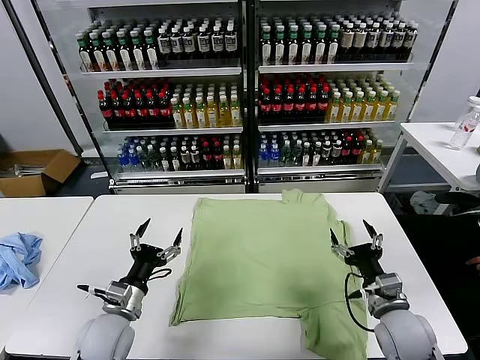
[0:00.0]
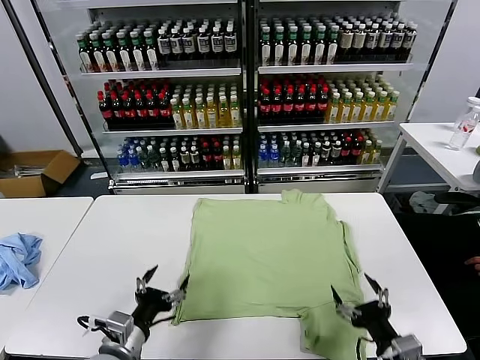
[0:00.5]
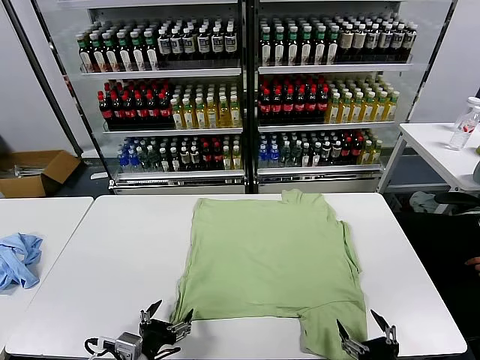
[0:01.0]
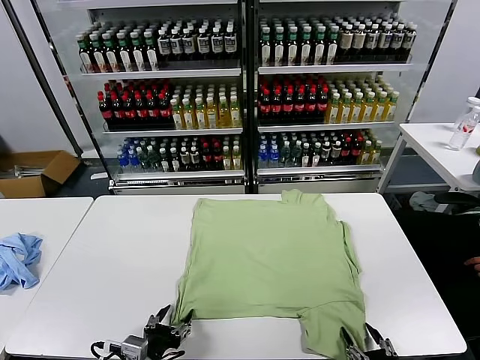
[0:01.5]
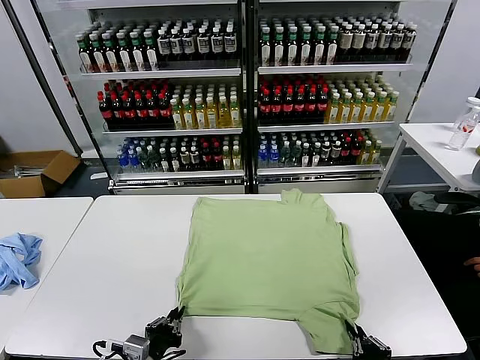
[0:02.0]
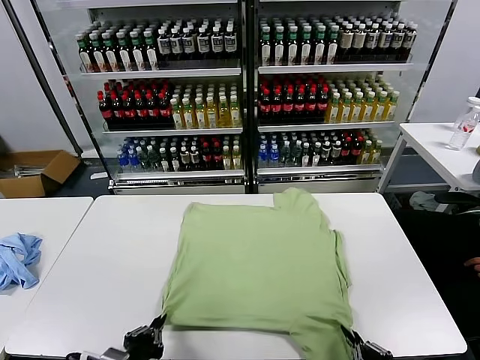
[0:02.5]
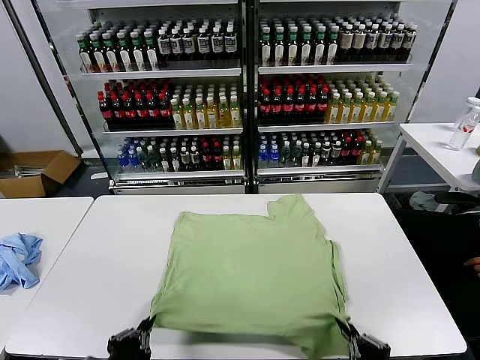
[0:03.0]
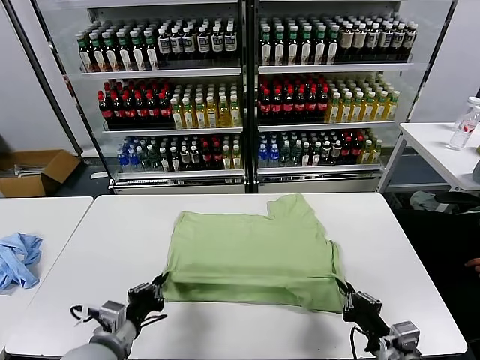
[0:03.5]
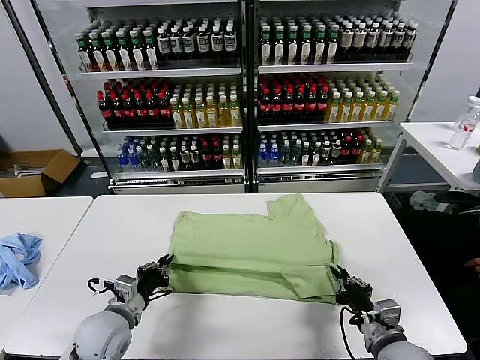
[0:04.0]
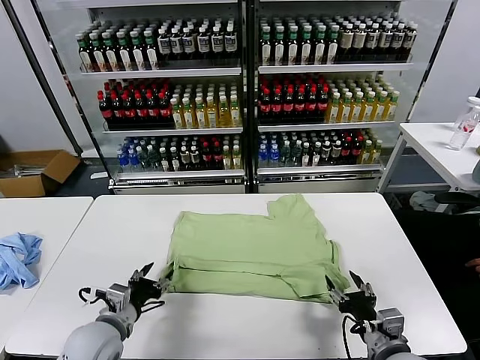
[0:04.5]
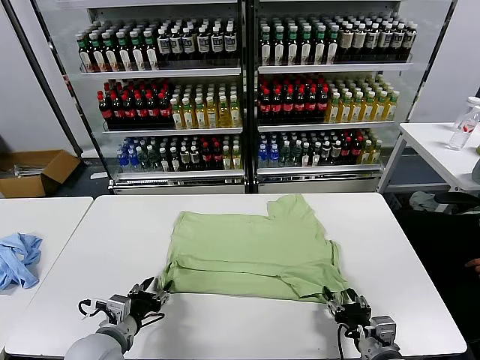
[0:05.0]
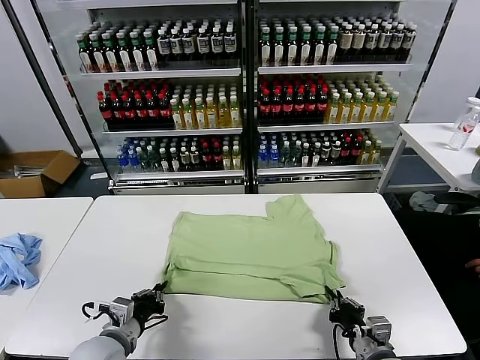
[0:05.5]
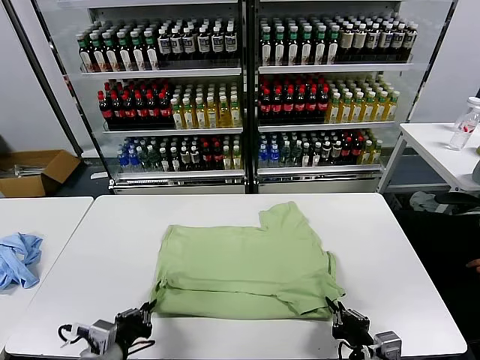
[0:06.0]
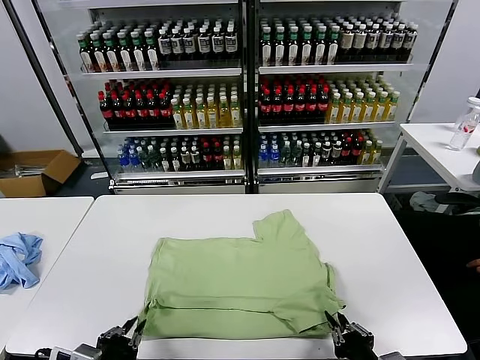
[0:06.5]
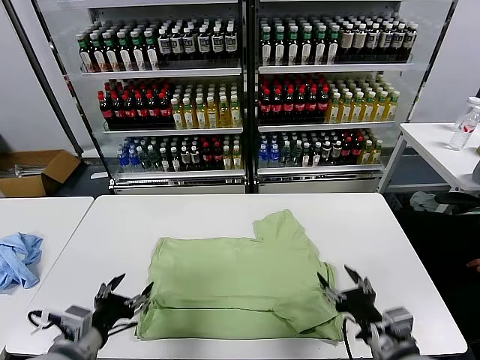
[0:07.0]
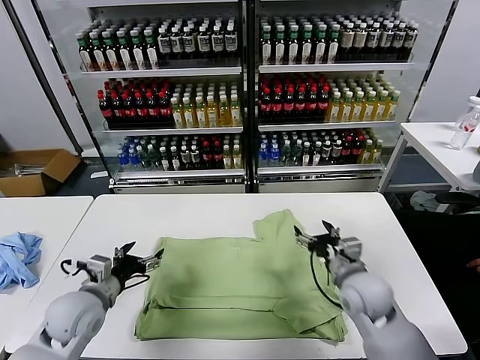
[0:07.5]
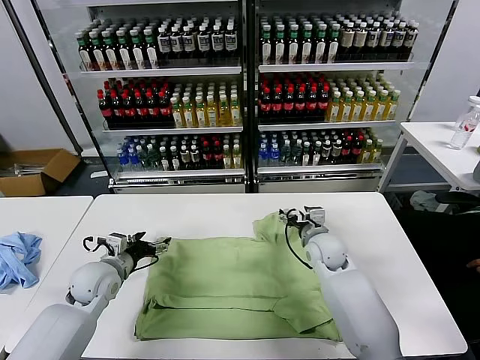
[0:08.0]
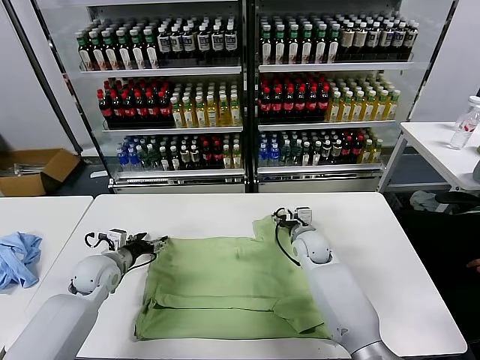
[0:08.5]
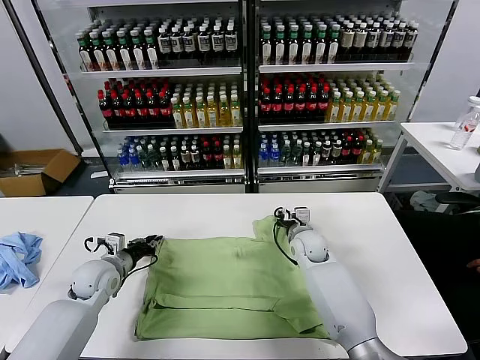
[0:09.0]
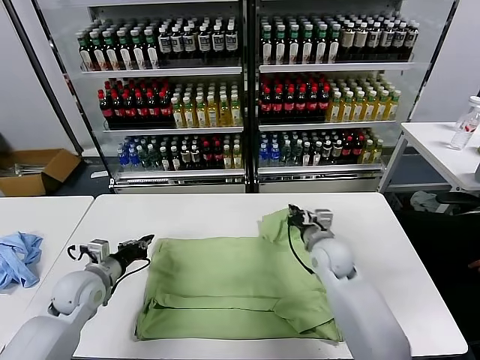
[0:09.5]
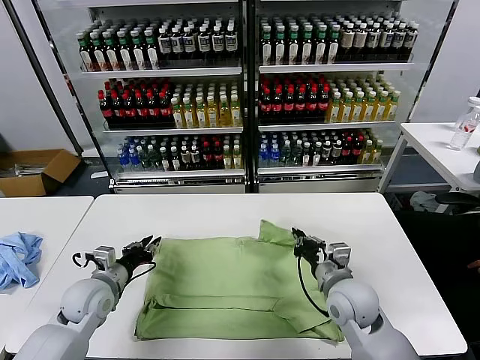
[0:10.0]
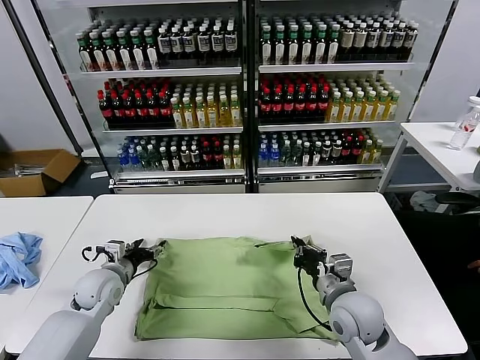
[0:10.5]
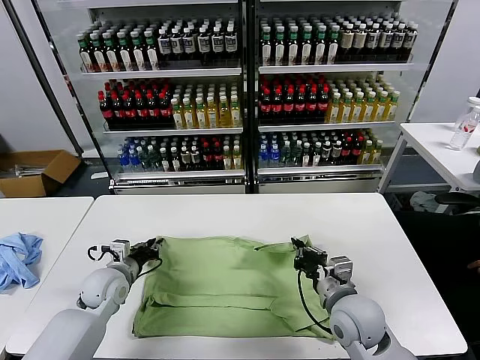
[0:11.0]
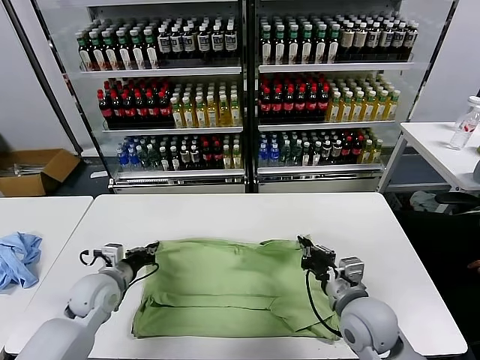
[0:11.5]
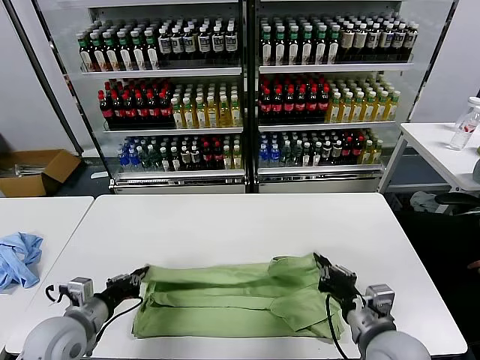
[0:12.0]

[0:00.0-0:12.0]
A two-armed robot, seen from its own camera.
Task of the whole recording: fold and organize the clothes.
Step, 0:00.0 to 0:02.0: use both grippers simultaneously to clamp the lower edge of the clothing fabric.
Step, 0:02.5 to 0:04.0: use both grippers to drag the lower edge of the fabric forward and fold it over the upper edge.
Step, 0:04.5 to 0:06.5: Drag the clothes downward with both gripper.
Step, 0:07.0 to 0:09.0: use both grippers simultaneously to clamp the upper edge of the clothing fabric.
0:02.0 to 0:04.0: The right gripper is displaced forward by some 10 cm. Meanwhile the left gripper is displaced forward and to the left by approximately 15 cm.
0:04.0 to 0:06.0: Both grippers travel together backward, roughly 10 cm. The right gripper opens, then closes once more. Meanwhile the left gripper opens and closes again.
0:06.0 to 0:08.0: The left gripper shifts roughly 20 cm forward, and opens up; the right gripper moves forward, roughly 35 cm, and opens its fingers.
0:08.0 to 0:10.0: The right gripper is displaced backward by some 15 cm, and closes its fingers. Meanwhile the left gripper closes up.
0:10.0 to 0:12.0: The two grippers go some 10 cm backward. The left gripper opens and closes again.

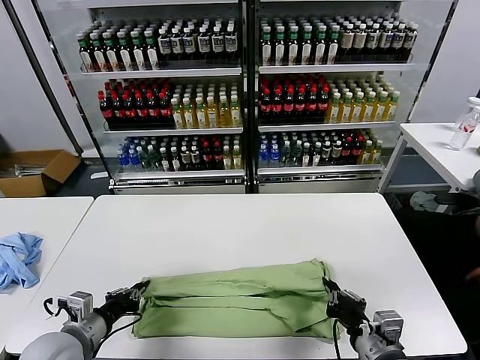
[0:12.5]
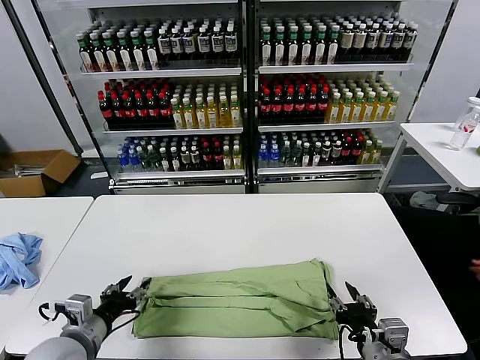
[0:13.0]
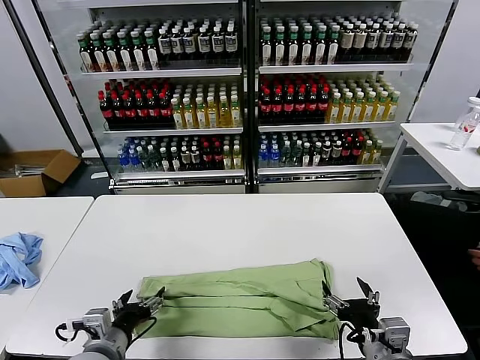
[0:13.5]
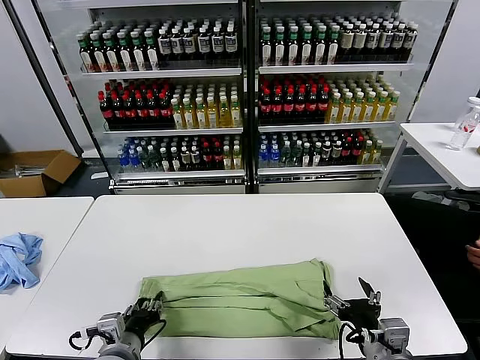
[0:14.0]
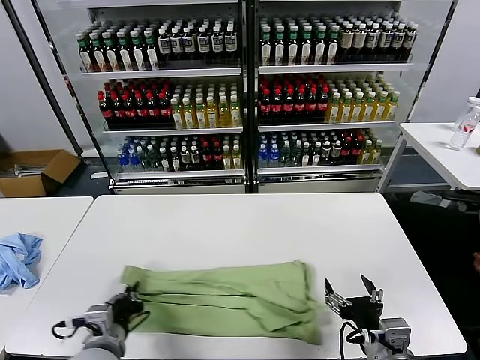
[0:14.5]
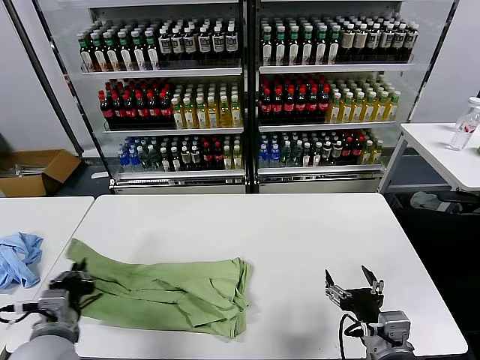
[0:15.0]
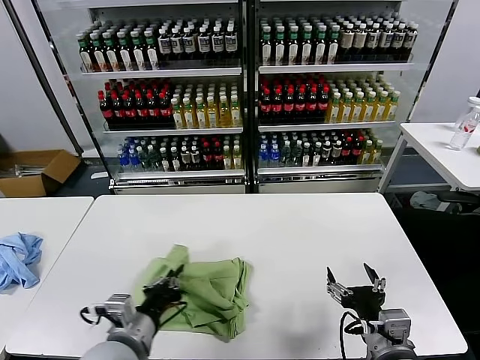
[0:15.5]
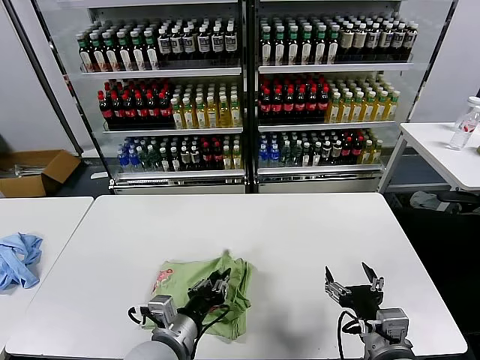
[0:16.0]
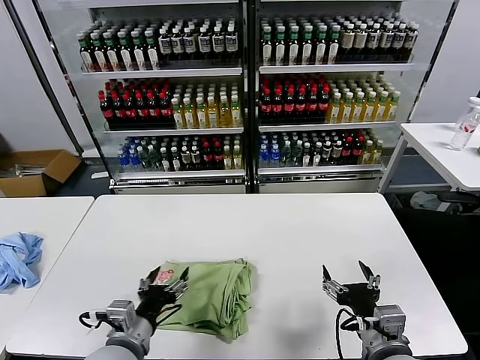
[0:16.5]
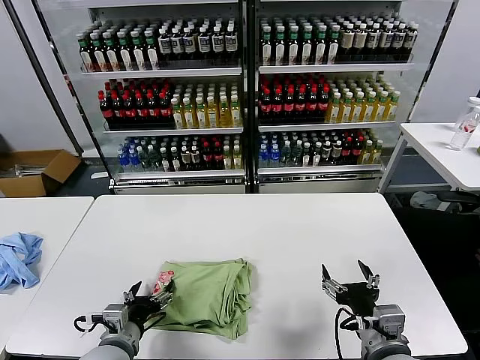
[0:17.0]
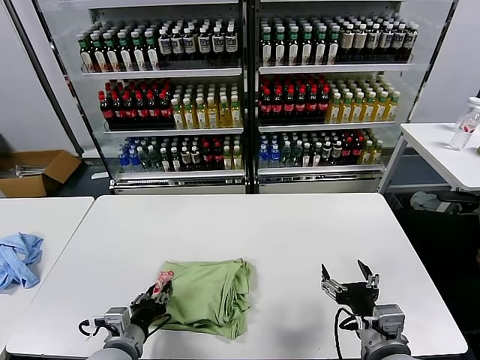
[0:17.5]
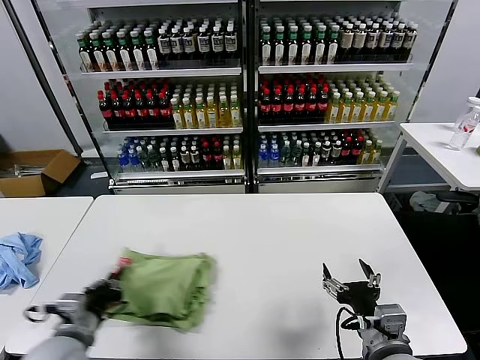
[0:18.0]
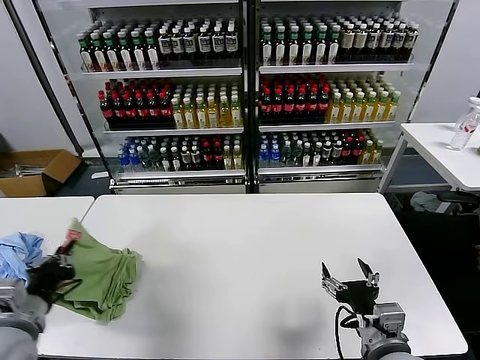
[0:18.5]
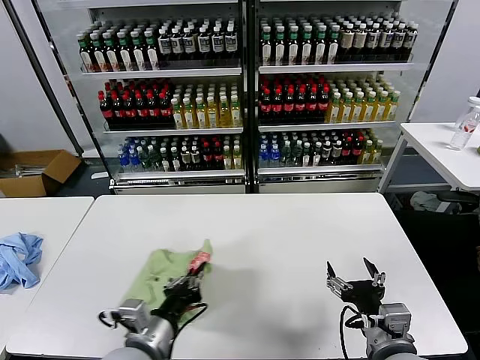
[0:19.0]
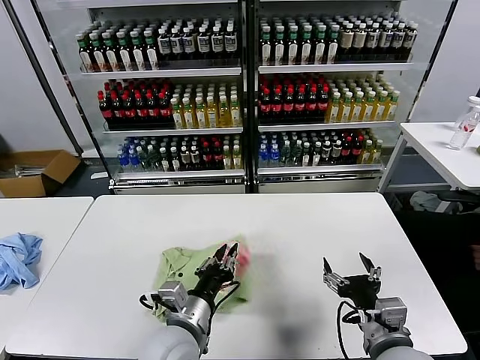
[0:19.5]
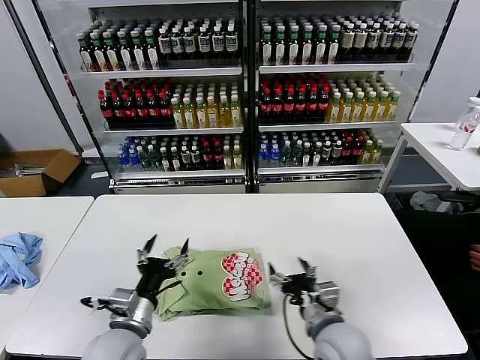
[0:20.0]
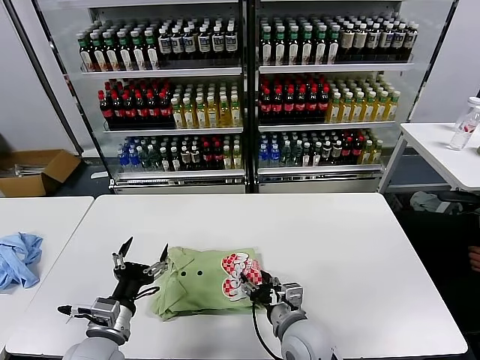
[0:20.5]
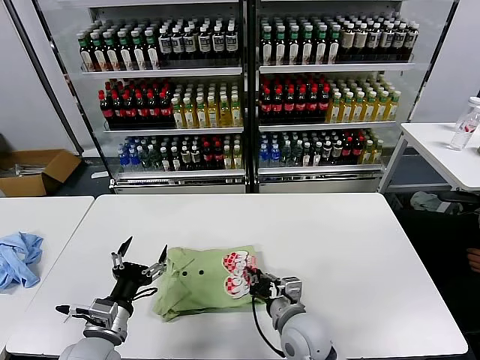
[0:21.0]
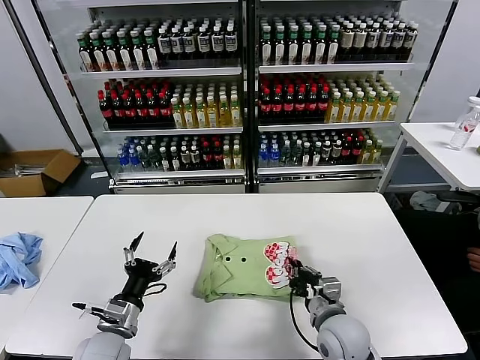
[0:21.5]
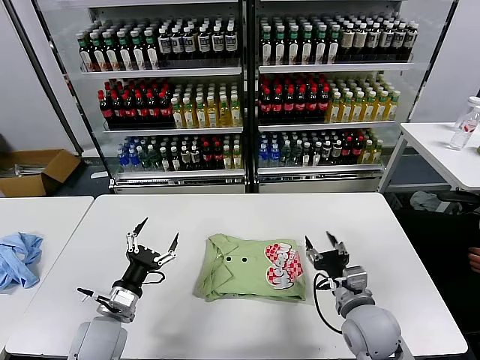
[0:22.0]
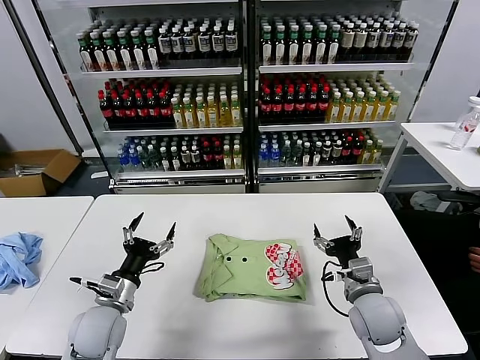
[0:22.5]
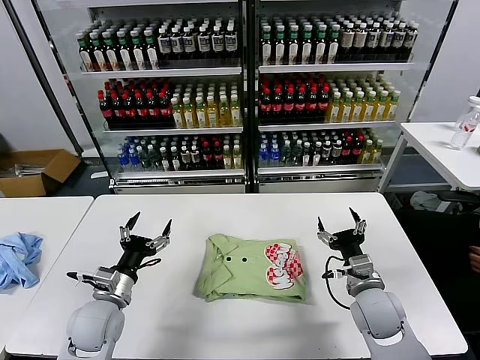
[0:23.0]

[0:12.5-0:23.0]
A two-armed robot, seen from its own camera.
Task of the whole recording: fold and organize the clothes.
Step, 0:13.0 to 0:14.0: use the left gripper to clamp the left edge of the fabric.
Step, 0:14.5 to 0:16.0: use the left gripper to drag the left edge of the fabric to the left and folds it over the right edge.
Step, 0:16.5 to 0:19.5: Flip the folded clothes over with left gripper.
Step, 0:20.0 to 0:21.5: Drag the clothes to the center of the table.
0:12.5 to 0:14.5: The right gripper opens up. The left gripper moves to the right, approximately 10 cm, and opens, then closes once more.
0:14.5 to 0:16.5: The left gripper moves left and right over some 20 cm, changing direction 2 times, and opens up.
0:16.5 to 0:19.0: The left gripper travels to the left and back again, about 15 cm each way, and closes.
0:19.0 to 0:21.0: The right gripper moves to the left, forward and downward, some 20 cm, and closes; the left gripper shifts approximately 10 cm to the left, and opens.
0:21.0 to 0:23.0: The left gripper travels forward by approximately 10 cm; the right gripper travels to the right by some 15 cm, and opens up.

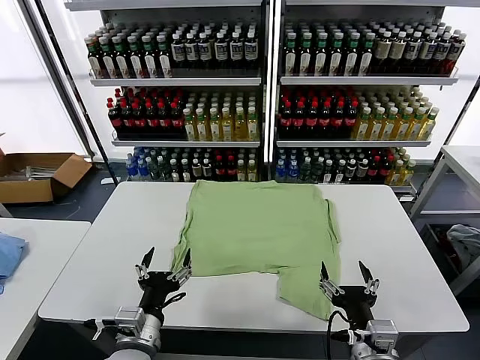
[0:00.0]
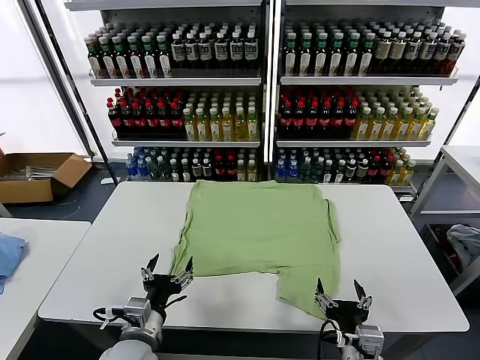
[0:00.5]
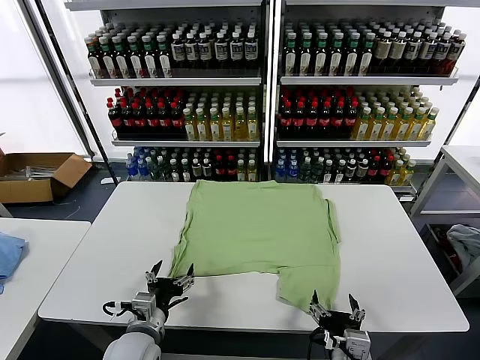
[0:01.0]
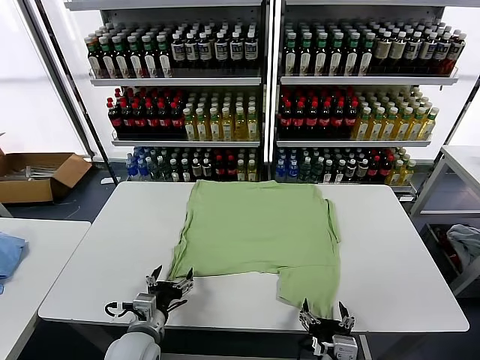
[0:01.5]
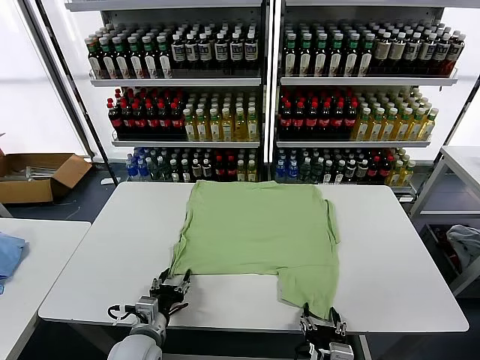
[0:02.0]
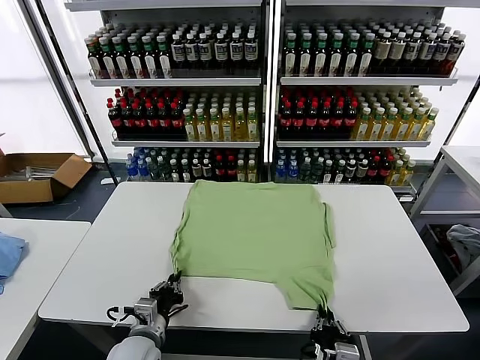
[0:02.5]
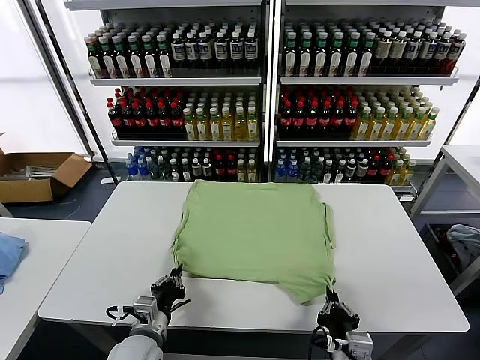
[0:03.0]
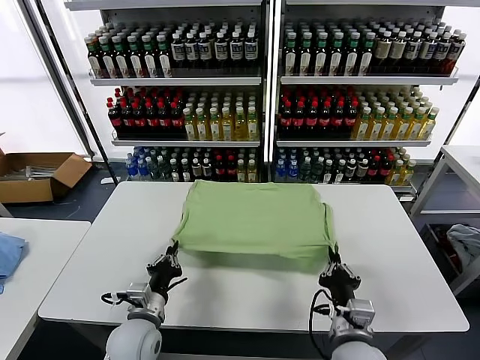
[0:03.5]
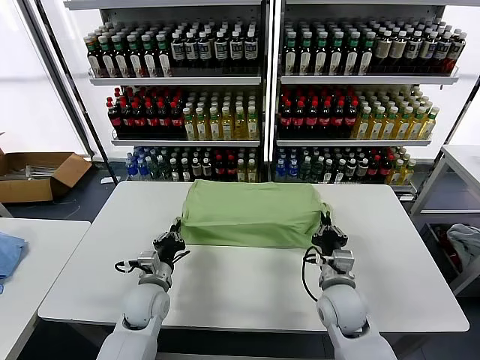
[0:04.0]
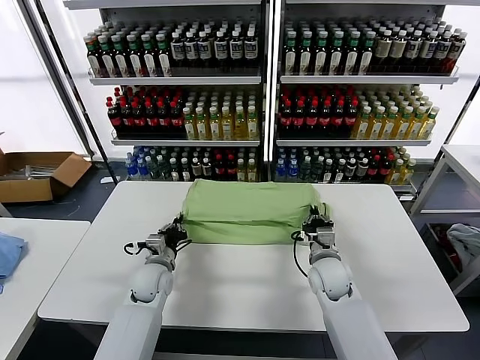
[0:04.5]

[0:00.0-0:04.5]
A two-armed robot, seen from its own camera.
Task of the whole recording: fold and organize the clothes.
Step, 0:00.0 to 0:02.5: use both grippers simultaneously to clamp the lower edge of the clothing fabric.
0:02.0 to 0:04.5: The right gripper heads forward, covering some 25 cm, and closes. Meanwhile the left gripper goes some 15 cm forward, and closes its fingers.
